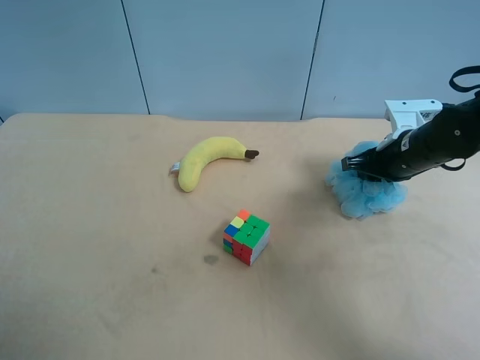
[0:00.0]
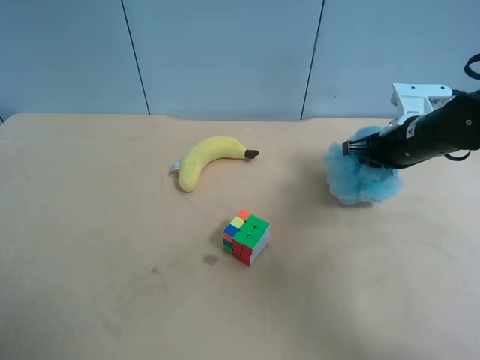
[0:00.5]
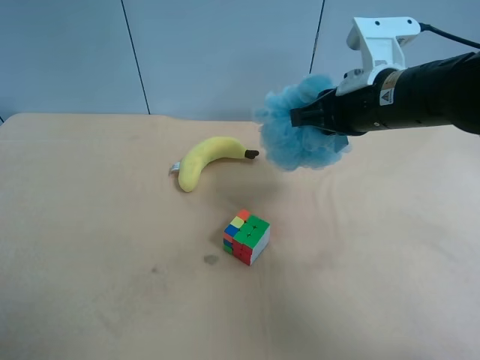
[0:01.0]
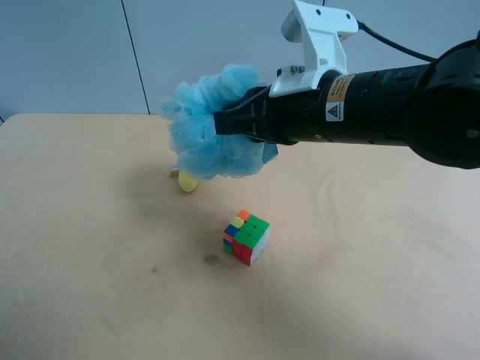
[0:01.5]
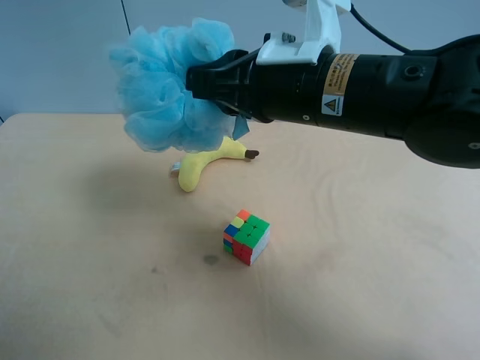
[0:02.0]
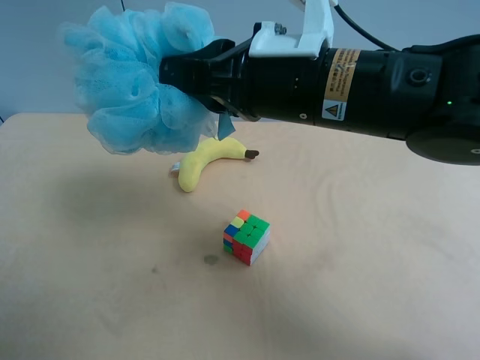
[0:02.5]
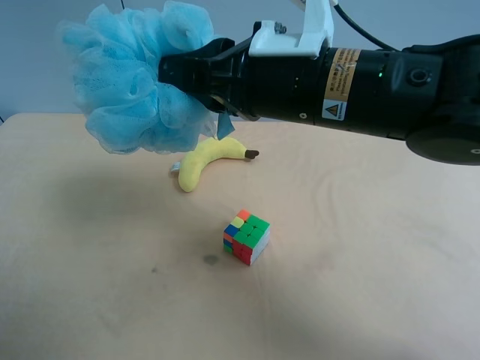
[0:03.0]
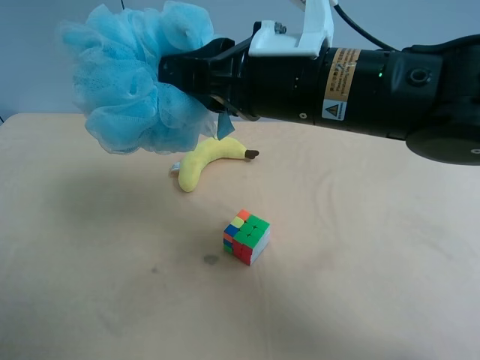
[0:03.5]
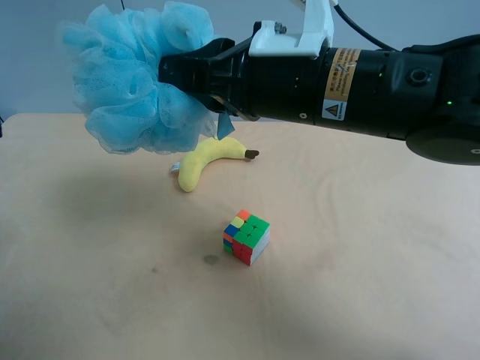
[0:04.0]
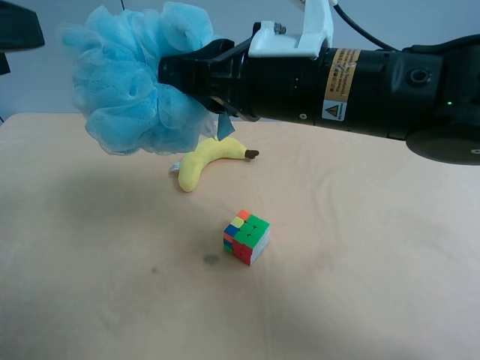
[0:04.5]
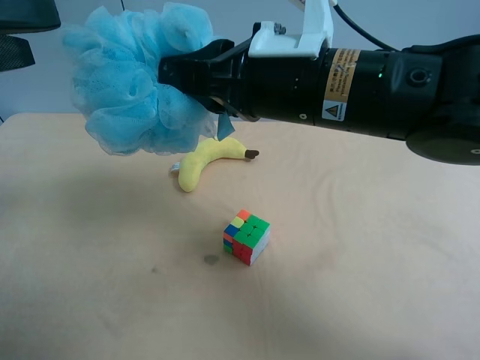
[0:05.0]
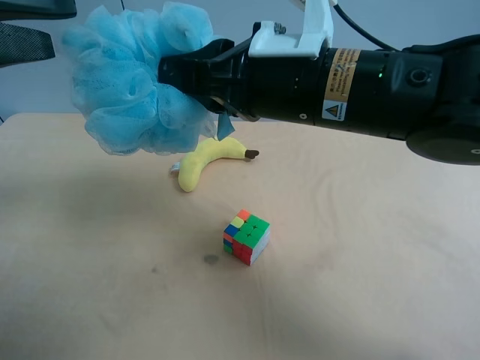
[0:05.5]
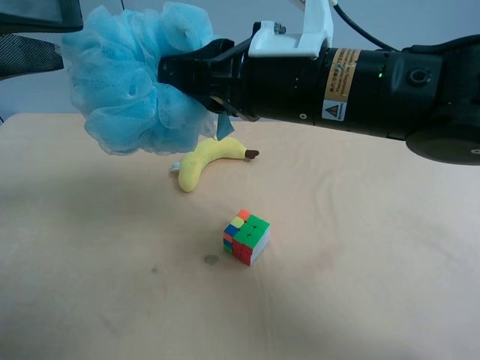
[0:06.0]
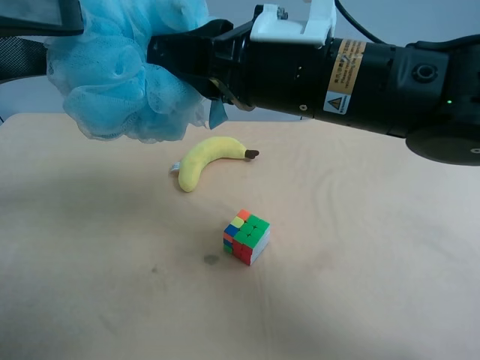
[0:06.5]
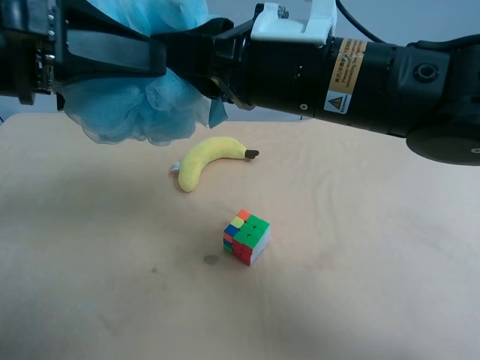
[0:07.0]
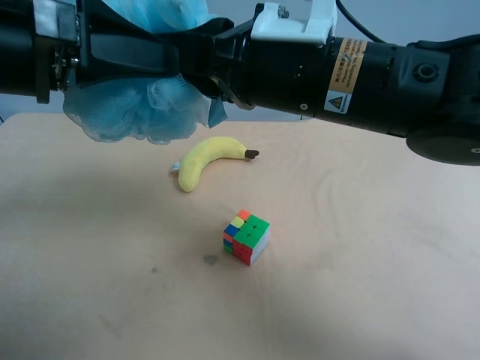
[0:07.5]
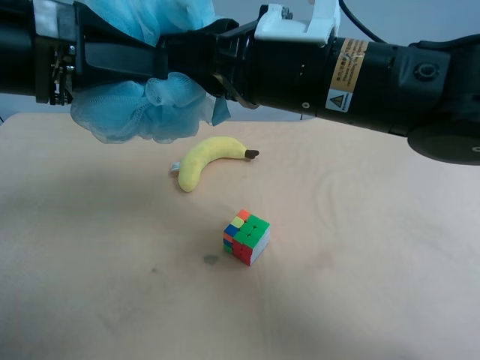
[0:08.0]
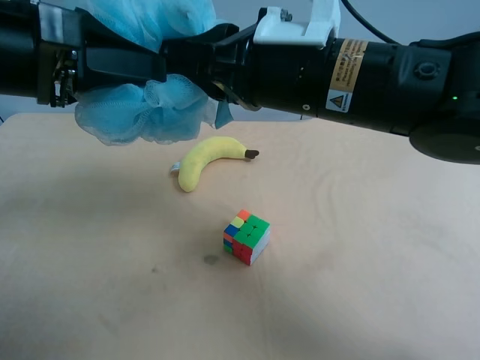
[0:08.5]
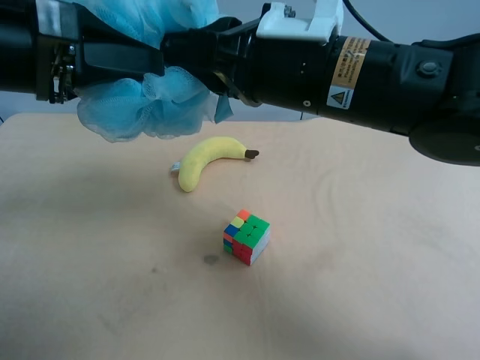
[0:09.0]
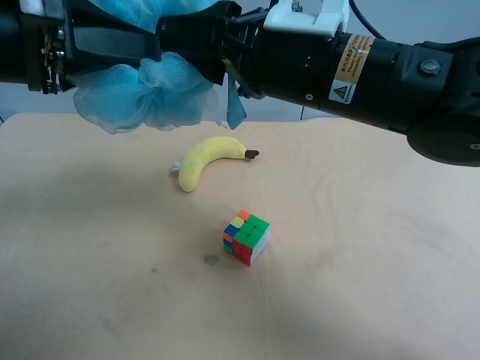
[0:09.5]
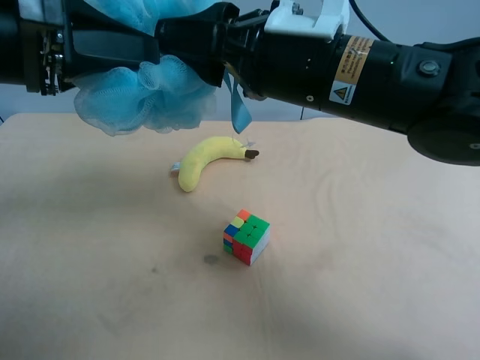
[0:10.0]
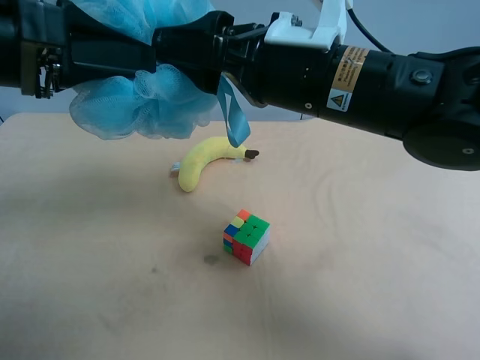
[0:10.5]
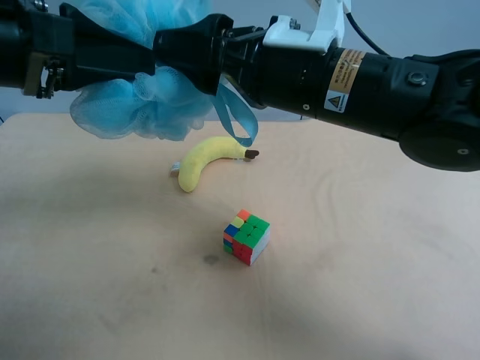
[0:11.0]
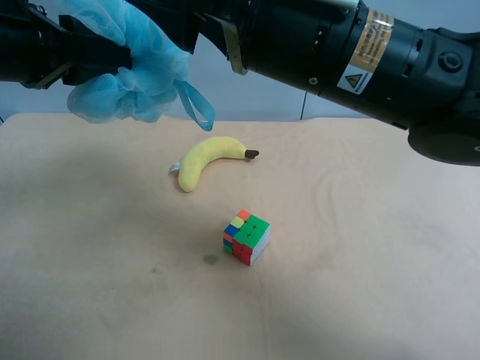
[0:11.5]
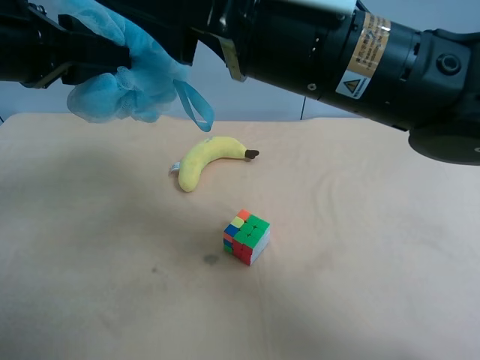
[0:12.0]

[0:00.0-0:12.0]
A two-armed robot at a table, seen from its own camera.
Task of the whole recording: use the right gripper to pick up the item and transfer it from the right gripper to the left gripper.
0:00.0 to 0:02.0: The right gripper moves to the left, upward and backward, about 25 cm.
0:02.0 to 0:04.0: The left gripper goes approximately 10 cm forward and upward.
0:04.0 to 0:06.0: The left gripper goes approximately 10 cm forward.
0:06.0 to 0:08.0: The left gripper moves to the right, roughly 5 cm, and closes up.
0:08.0 to 0:10.0: The right gripper opens.

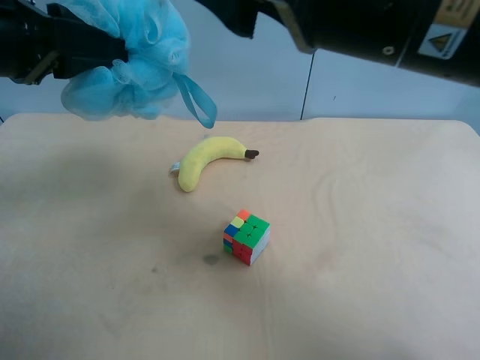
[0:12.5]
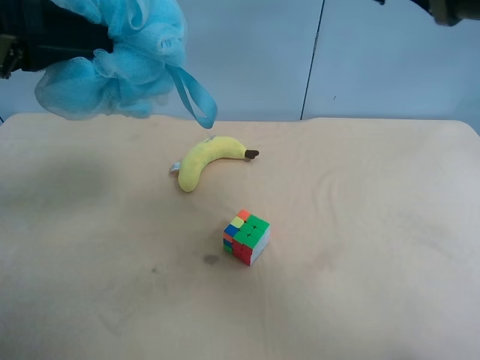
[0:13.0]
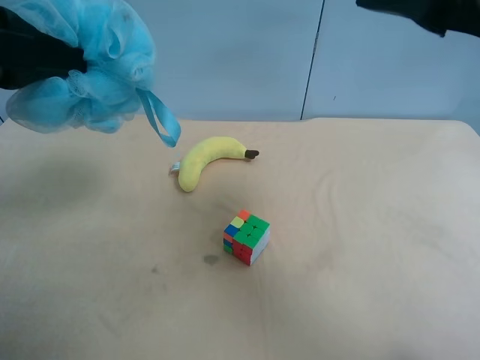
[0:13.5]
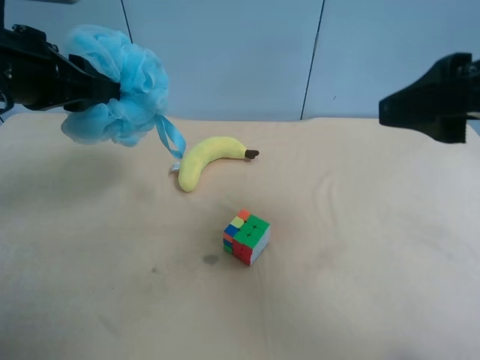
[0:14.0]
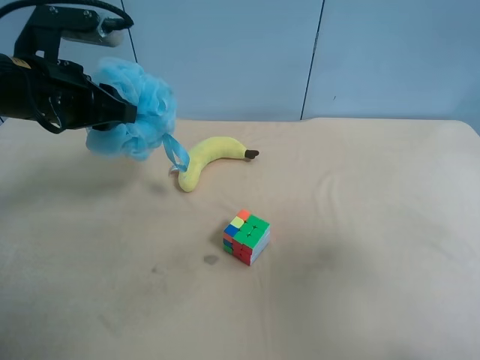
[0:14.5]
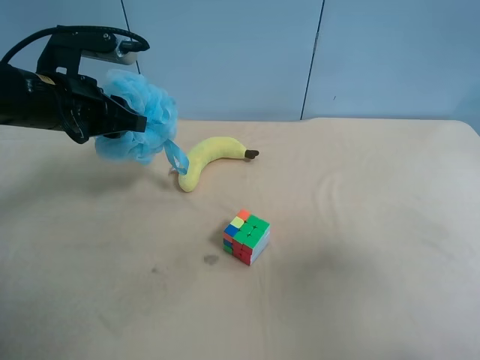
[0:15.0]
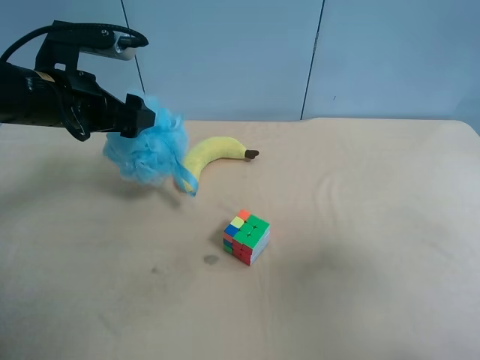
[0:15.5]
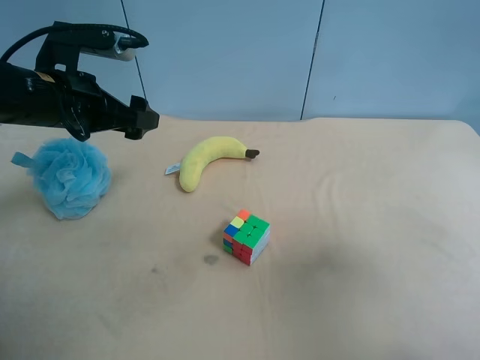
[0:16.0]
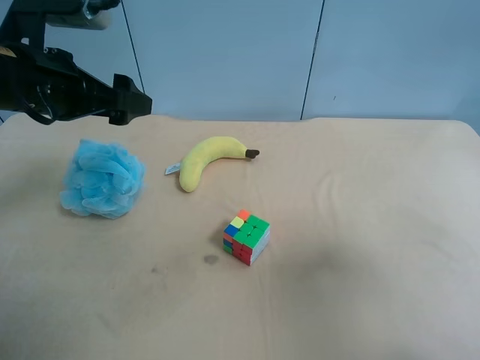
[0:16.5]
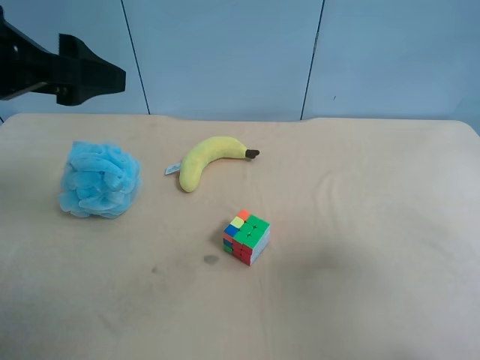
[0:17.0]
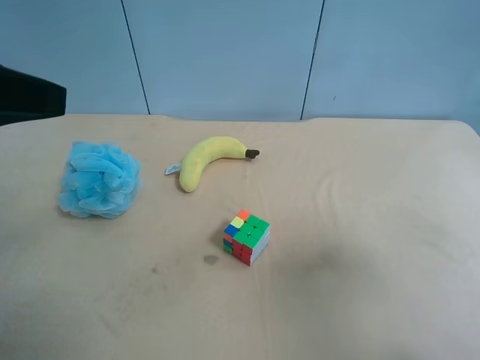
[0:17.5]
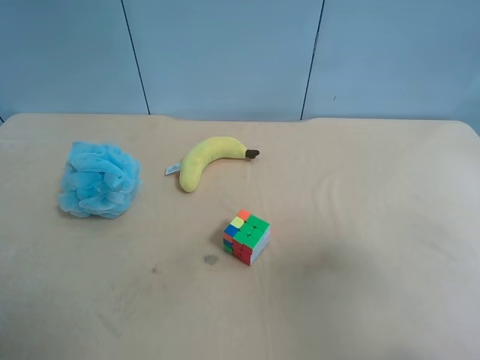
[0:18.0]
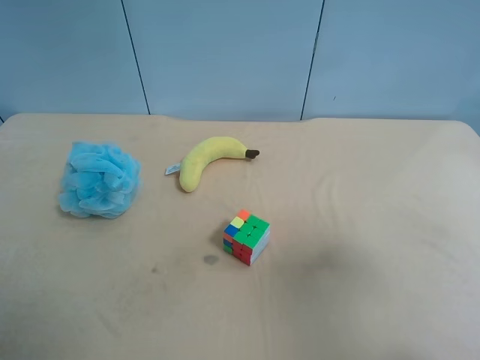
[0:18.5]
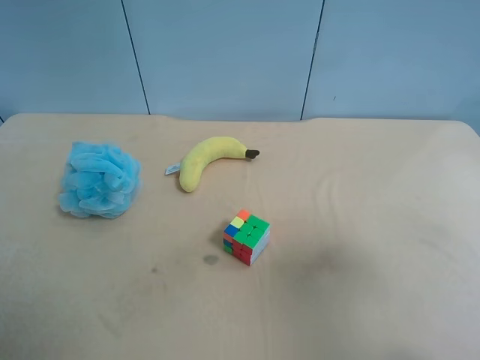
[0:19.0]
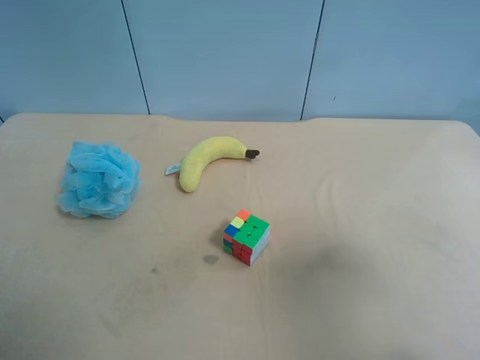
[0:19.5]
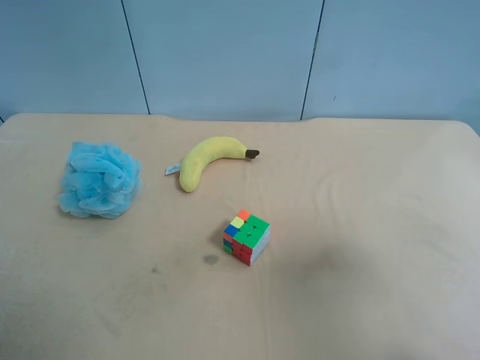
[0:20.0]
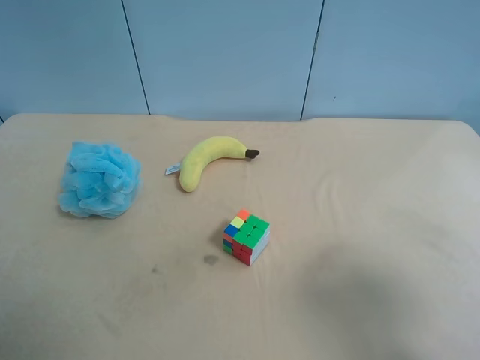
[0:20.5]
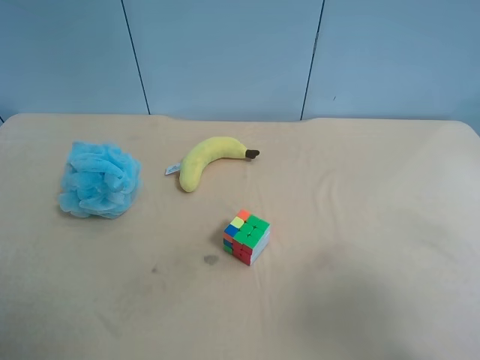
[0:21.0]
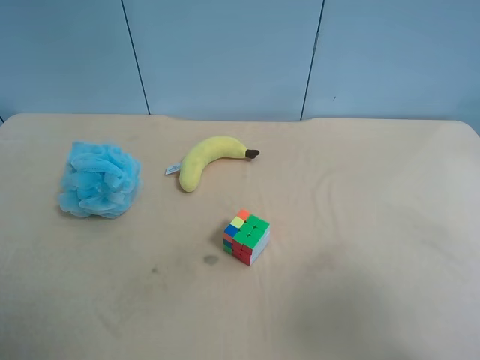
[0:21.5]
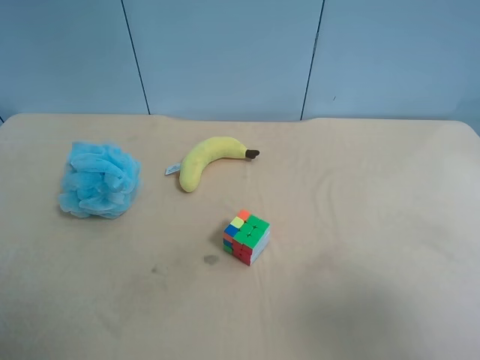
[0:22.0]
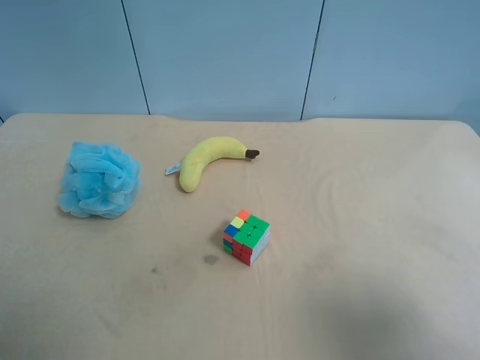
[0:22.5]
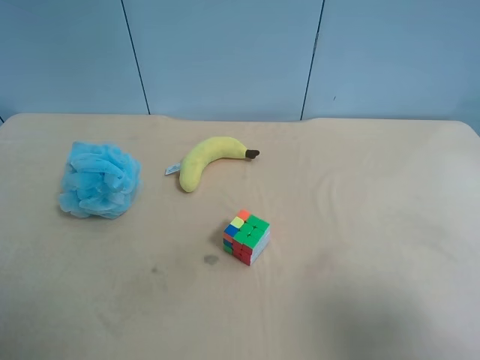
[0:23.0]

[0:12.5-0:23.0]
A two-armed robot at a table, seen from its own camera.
Task of the whole recording: use the right gripper to pick up the item and transfer it from the right gripper to the left gripper.
0:12.5 to 0:14.5: The left gripper shifts approximately 10 cm downward and forward. Meanwhile the right gripper moves to the right and backward, roughly 20 cm.
0:14.5 to 0:16.5: The left gripper opens its fingers.
0:16.5 to 0:19.0: The left gripper heads backward, covering about 30 cm.
0:19.0 to 0:21.0: The right gripper changes place by some 5 cm.
